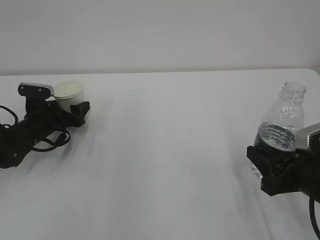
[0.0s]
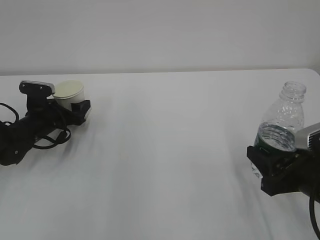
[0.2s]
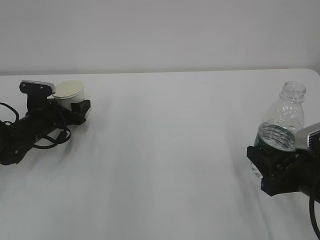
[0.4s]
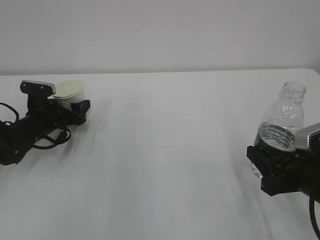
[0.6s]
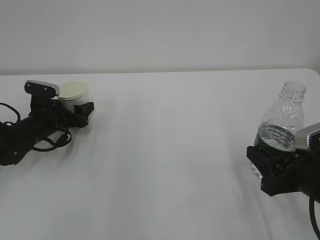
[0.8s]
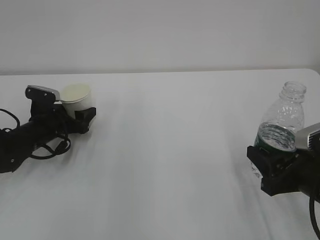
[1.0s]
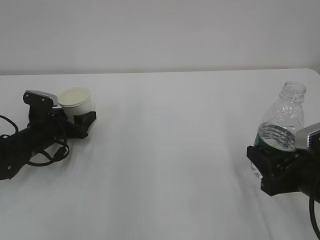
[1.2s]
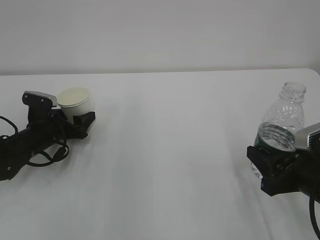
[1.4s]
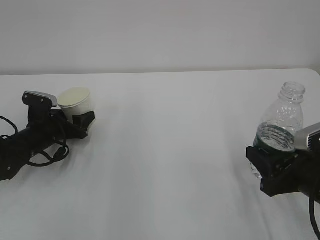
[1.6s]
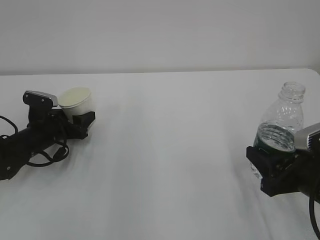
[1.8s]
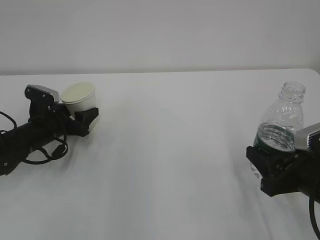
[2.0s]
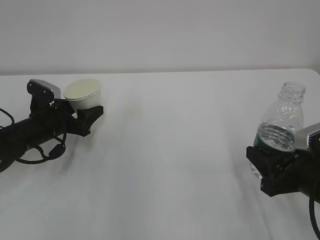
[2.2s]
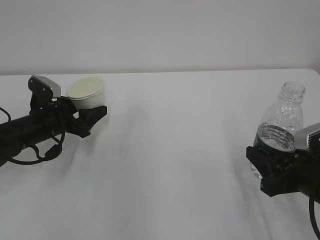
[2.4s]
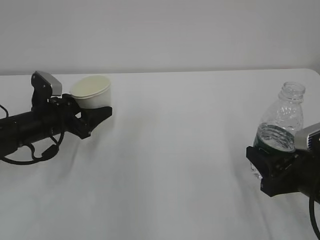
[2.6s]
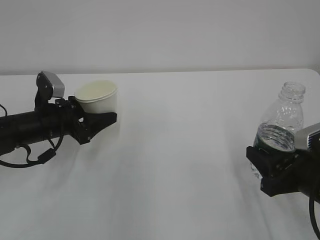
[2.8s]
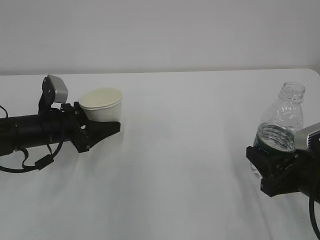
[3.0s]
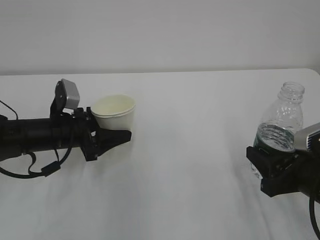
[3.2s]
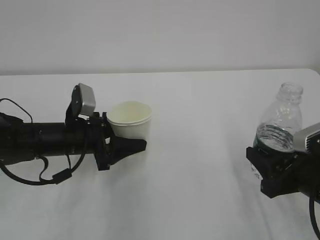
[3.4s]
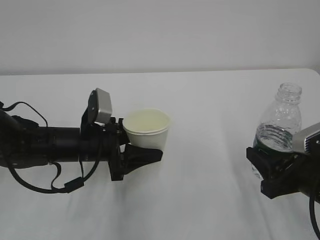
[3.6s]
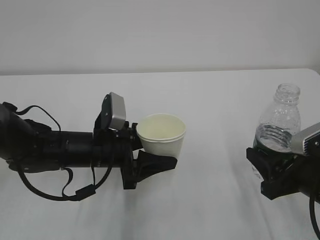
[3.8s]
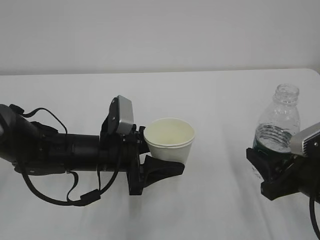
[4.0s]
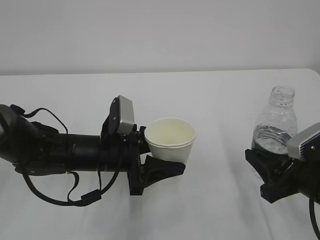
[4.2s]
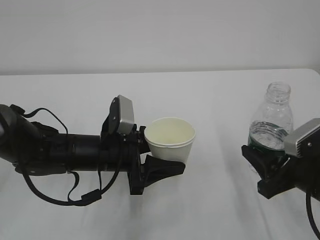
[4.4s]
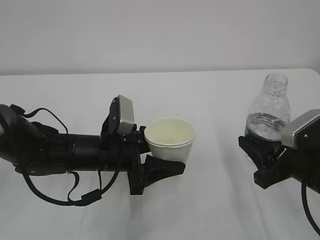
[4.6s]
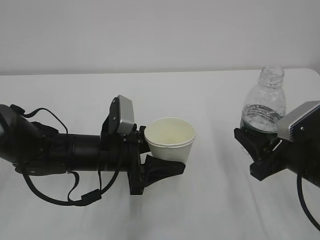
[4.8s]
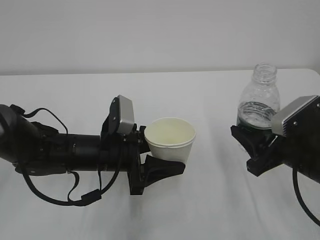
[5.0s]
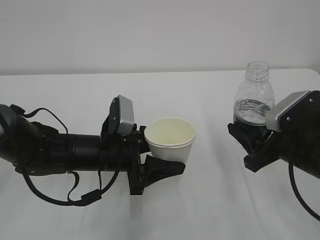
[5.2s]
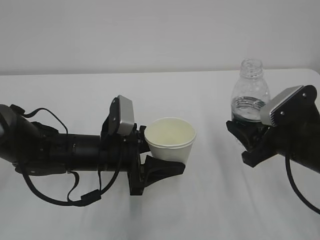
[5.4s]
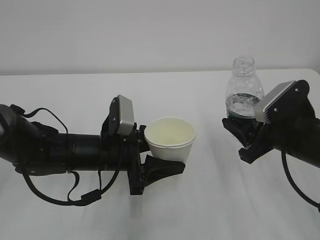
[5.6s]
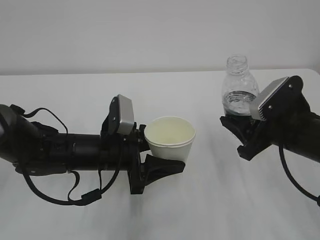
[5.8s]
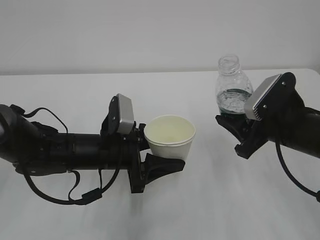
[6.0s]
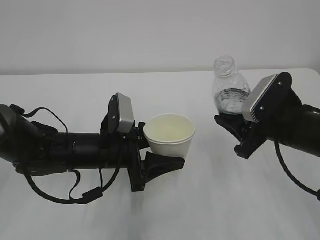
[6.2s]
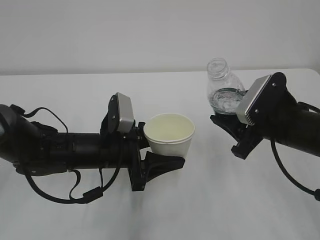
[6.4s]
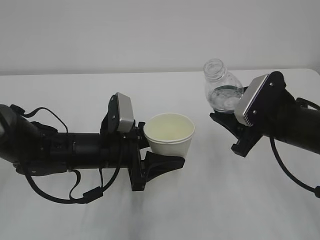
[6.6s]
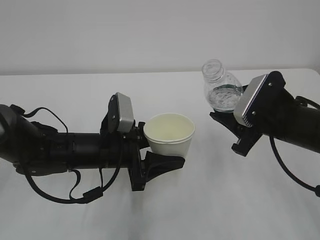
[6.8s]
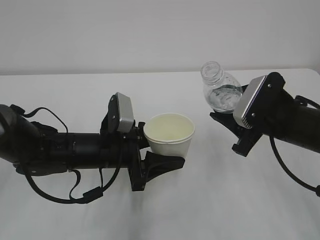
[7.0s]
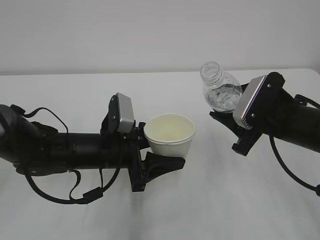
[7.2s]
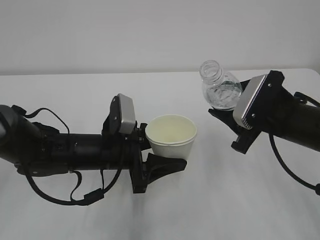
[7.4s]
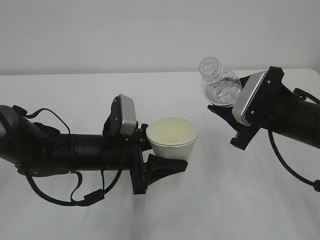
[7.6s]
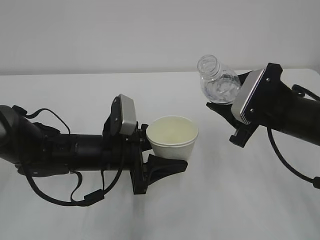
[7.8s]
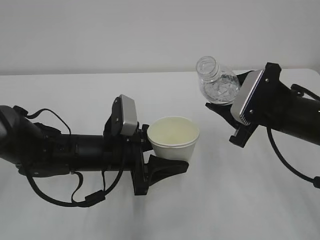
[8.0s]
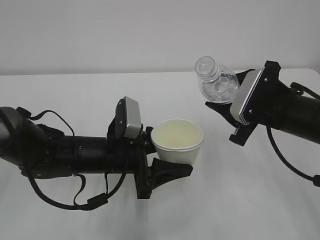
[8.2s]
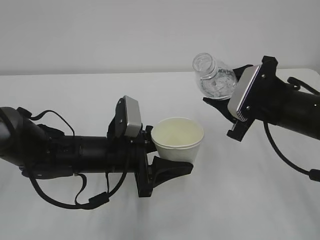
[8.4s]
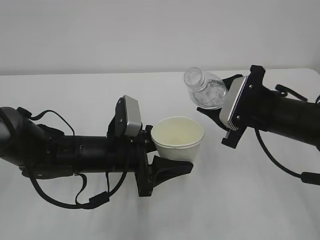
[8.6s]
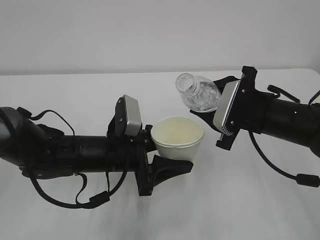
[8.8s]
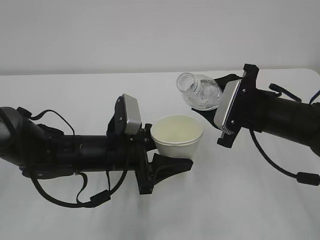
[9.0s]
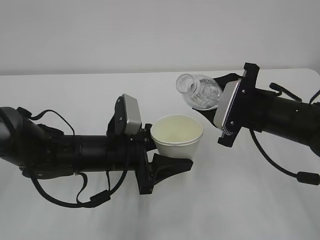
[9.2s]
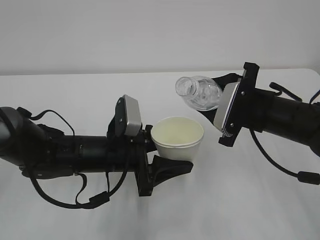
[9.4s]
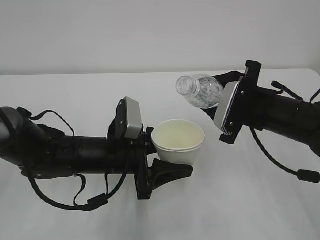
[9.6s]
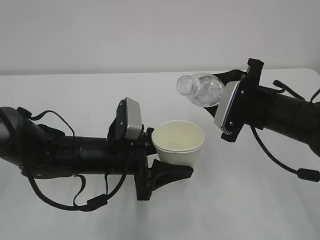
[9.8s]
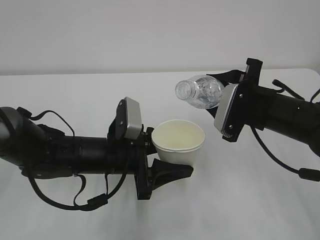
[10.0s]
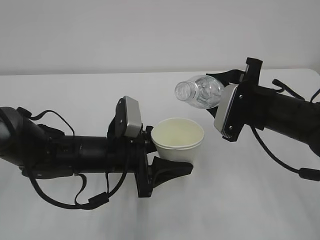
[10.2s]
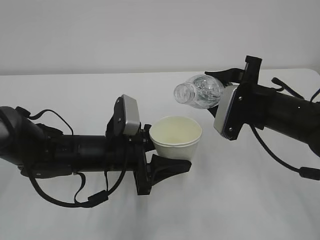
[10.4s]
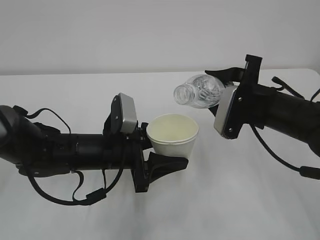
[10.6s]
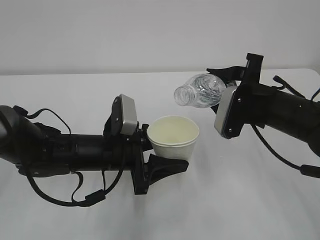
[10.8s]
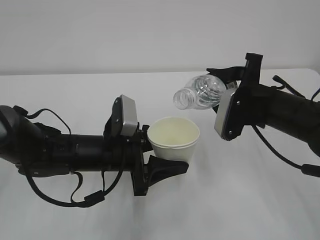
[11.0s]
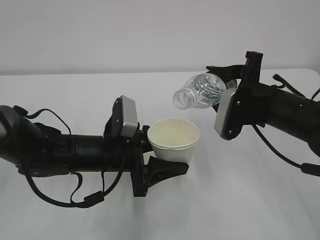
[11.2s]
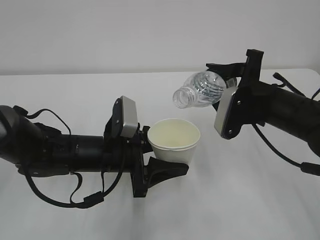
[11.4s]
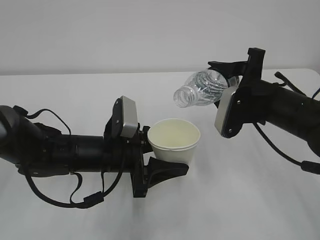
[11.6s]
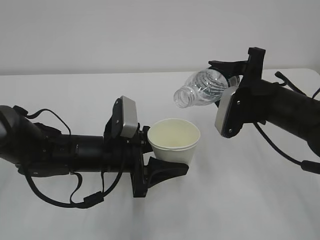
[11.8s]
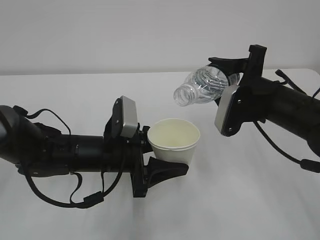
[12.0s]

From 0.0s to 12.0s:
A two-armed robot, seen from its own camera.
From 0.0s to 1.6s: The left gripper closes its fingers.
From 1.6s to 3.0s: The left gripper shifts approximately 5 cm upward.
From 3.0s to 4.4s: The left gripper shifts about 15 cm to the right and backward.
From 4.4s to 6.0s: The right gripper is displaced forward by roughly 5 cm.
From 6.0s to 7.6s: There are only small adjustments of the grippers.
From 7.6s to 9.0s: The grippers make only small movements.
From 9.0s to 10.4s: The grippers move only a little.
From 10.4s to 12.0s: There are only small adjustments of the grippers.

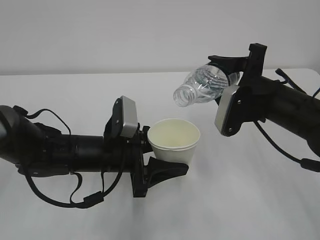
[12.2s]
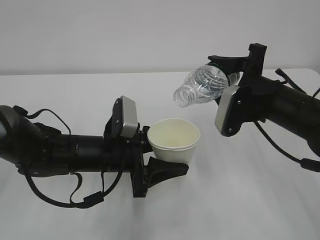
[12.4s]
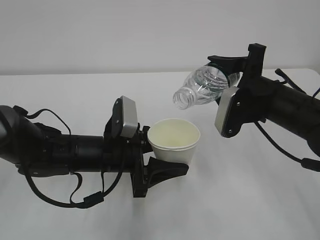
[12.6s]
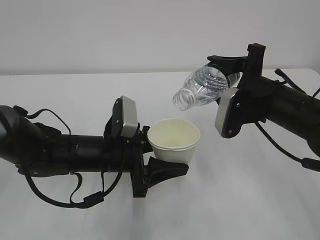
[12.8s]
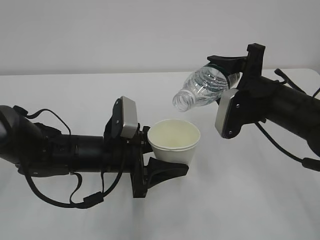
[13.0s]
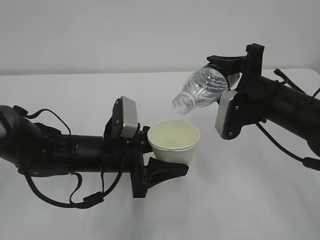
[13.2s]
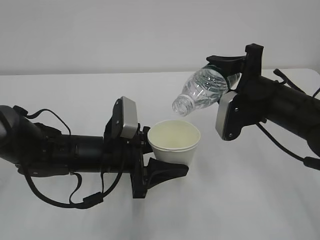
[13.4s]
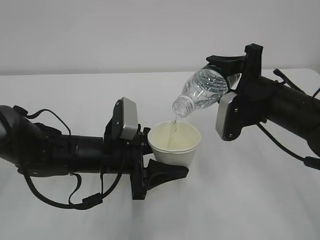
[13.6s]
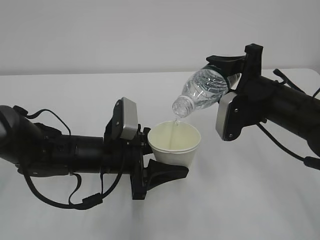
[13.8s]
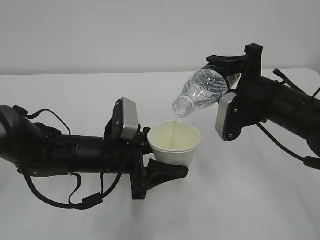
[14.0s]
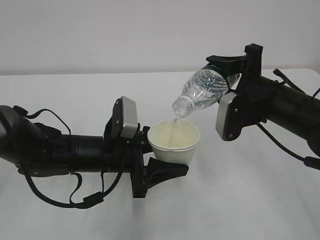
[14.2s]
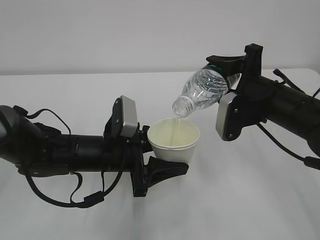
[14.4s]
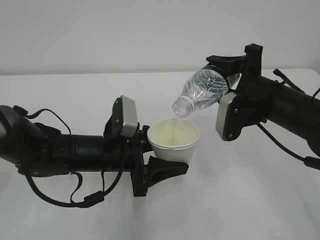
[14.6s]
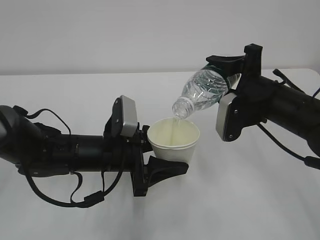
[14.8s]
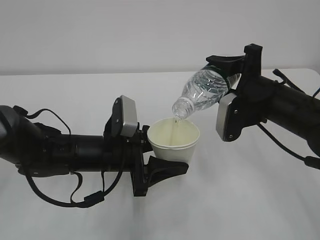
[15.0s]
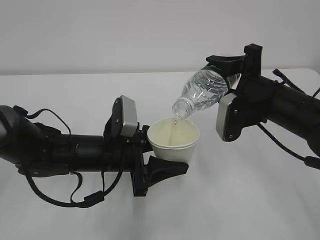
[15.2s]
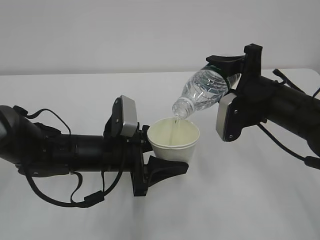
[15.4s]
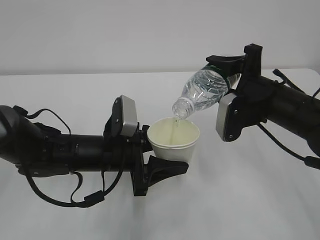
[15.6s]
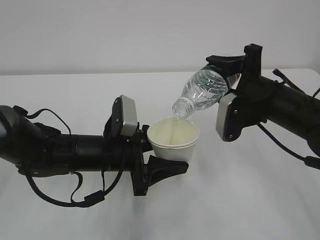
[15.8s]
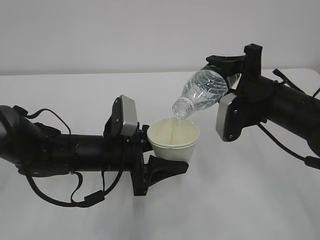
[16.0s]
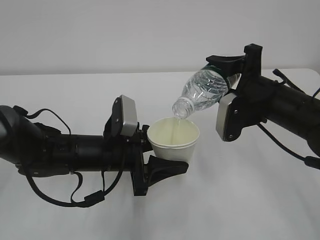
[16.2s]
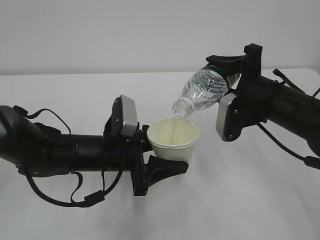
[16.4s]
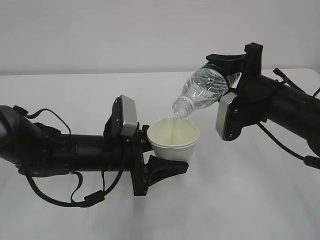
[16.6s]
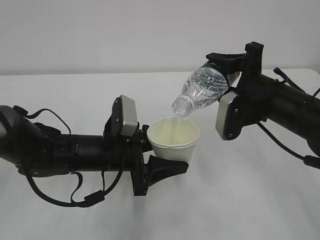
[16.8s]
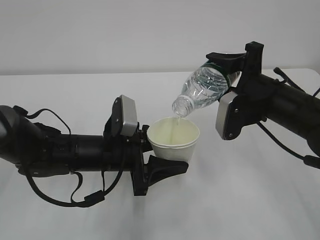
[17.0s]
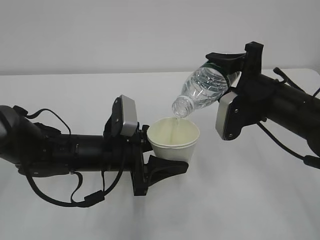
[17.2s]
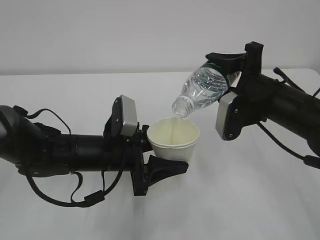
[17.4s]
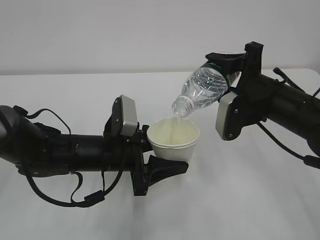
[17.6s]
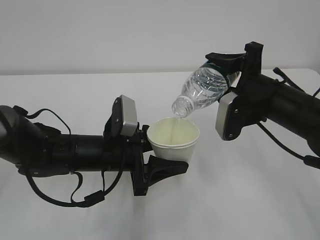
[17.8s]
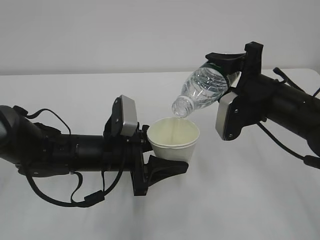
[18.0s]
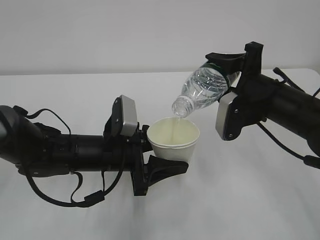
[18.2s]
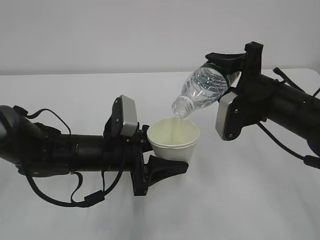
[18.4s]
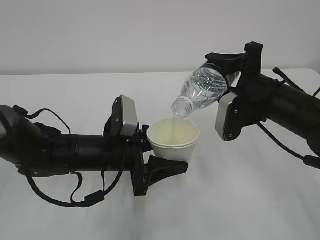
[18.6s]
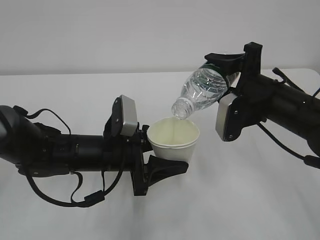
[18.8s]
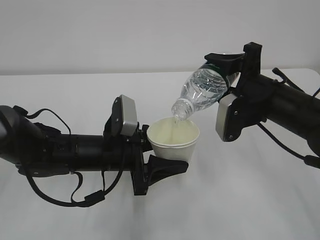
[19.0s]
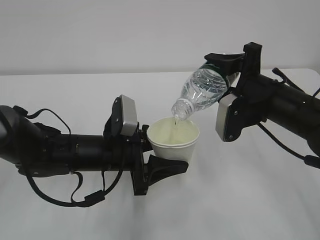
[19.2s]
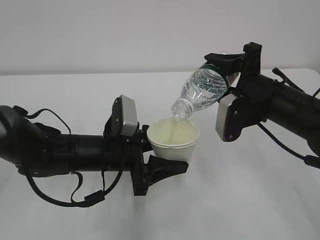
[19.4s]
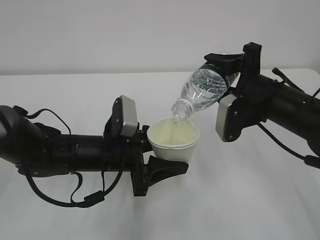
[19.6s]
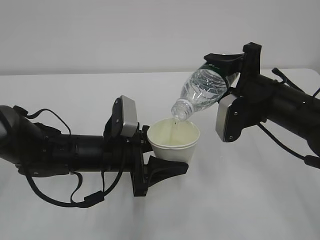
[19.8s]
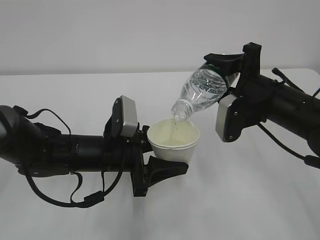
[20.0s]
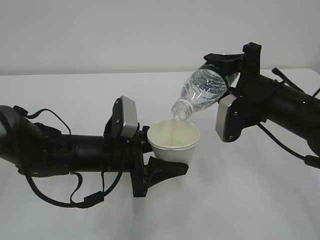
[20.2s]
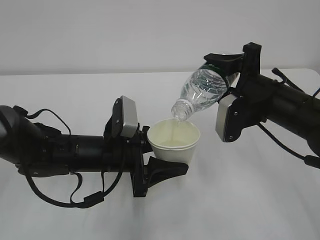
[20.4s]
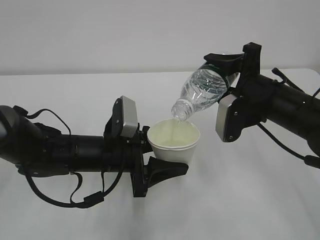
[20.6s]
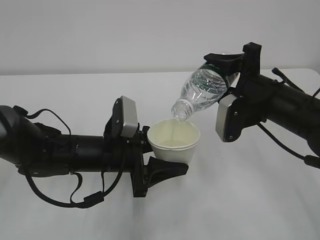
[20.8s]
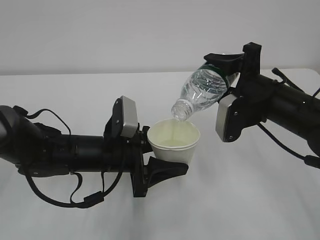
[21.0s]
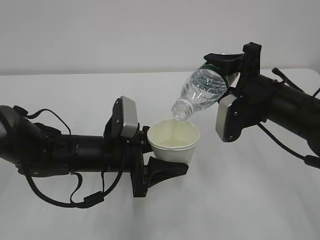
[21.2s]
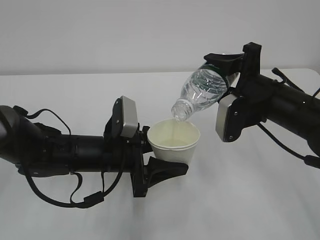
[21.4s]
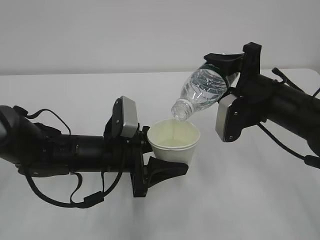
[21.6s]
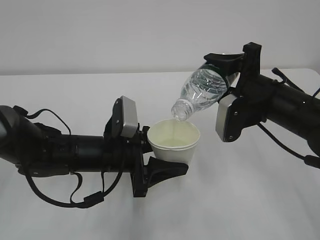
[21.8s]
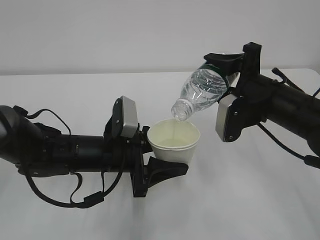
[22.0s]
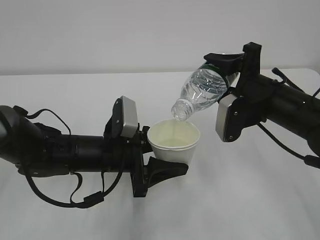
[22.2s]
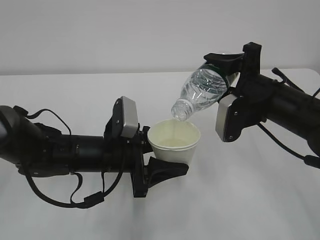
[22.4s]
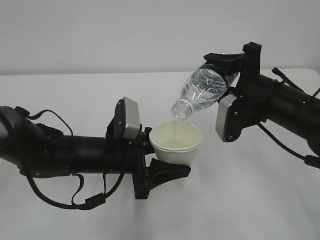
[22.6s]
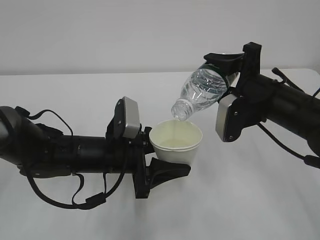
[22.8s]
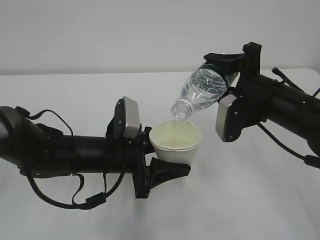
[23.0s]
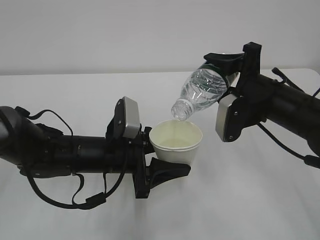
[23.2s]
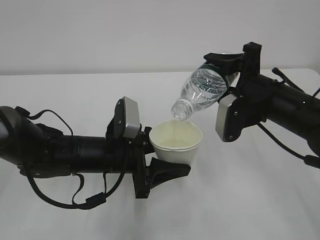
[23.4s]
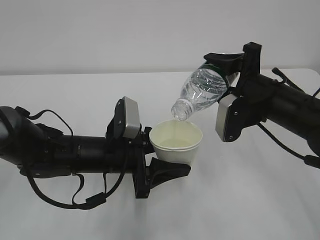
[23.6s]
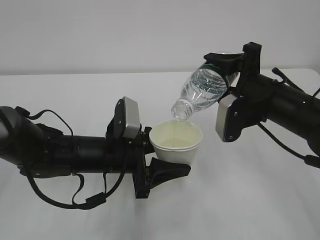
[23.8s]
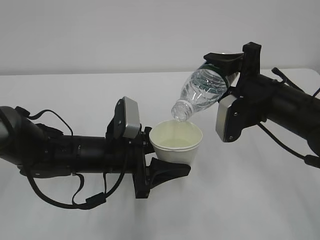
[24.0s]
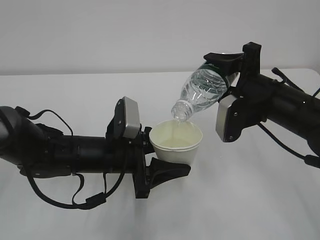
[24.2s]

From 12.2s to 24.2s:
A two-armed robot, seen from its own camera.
From 12.2s to 13.8s: The grippers move only a little.
From 13.8s to 22.6s: The two grippers keep their place.
From 22.6s to 24.2s: Neither gripper changes place.
